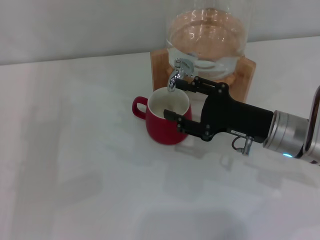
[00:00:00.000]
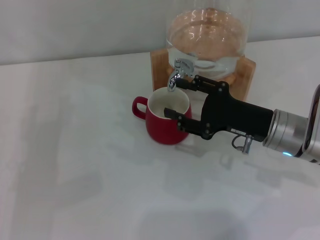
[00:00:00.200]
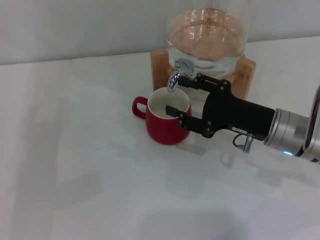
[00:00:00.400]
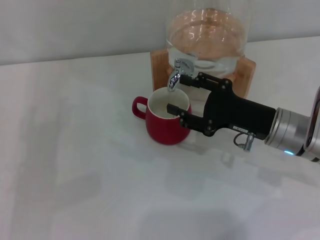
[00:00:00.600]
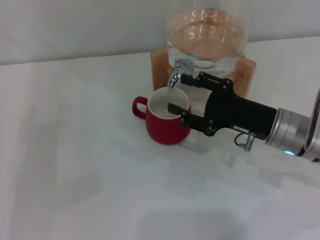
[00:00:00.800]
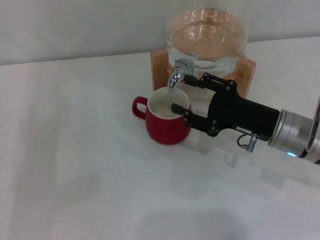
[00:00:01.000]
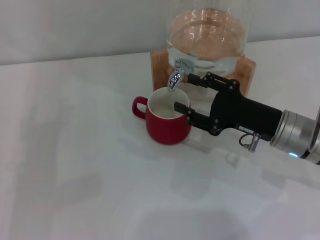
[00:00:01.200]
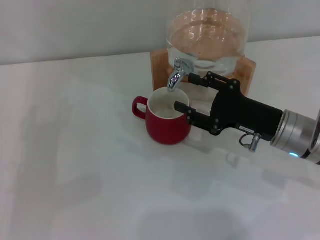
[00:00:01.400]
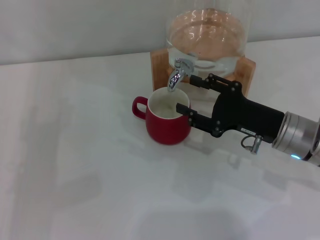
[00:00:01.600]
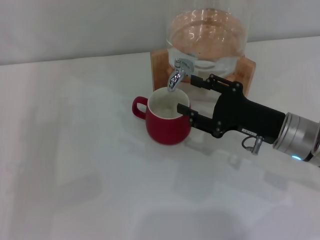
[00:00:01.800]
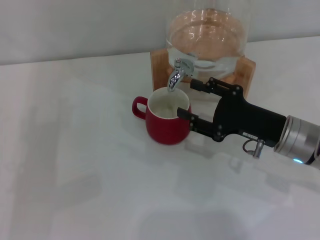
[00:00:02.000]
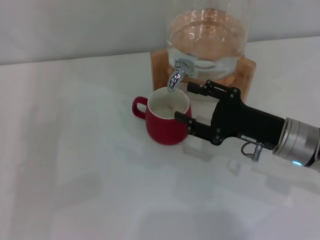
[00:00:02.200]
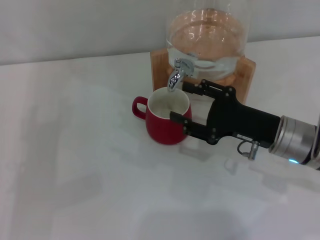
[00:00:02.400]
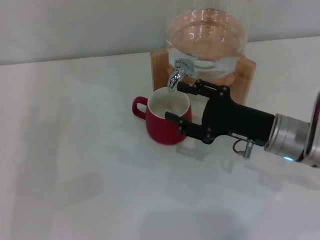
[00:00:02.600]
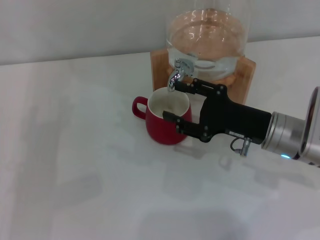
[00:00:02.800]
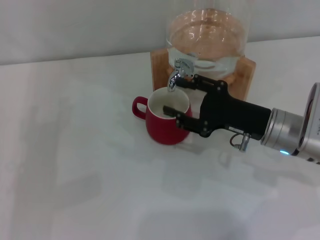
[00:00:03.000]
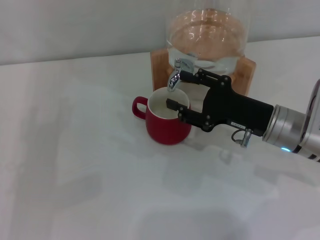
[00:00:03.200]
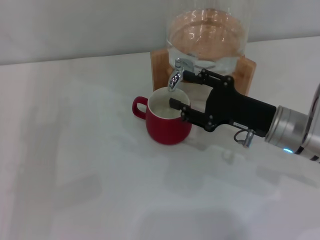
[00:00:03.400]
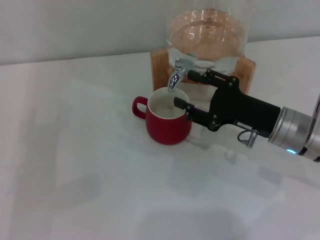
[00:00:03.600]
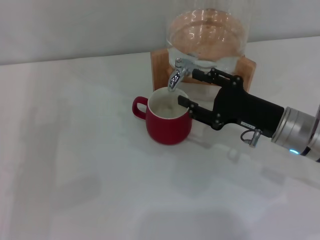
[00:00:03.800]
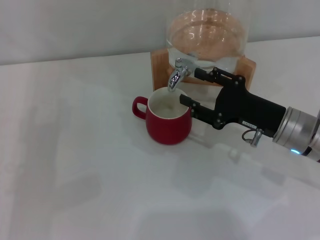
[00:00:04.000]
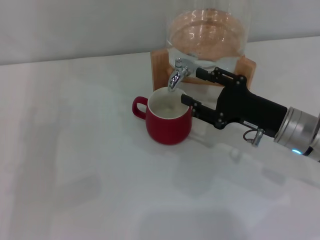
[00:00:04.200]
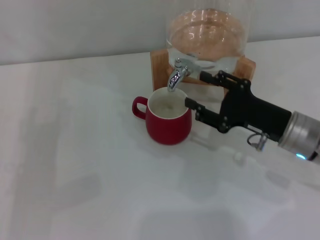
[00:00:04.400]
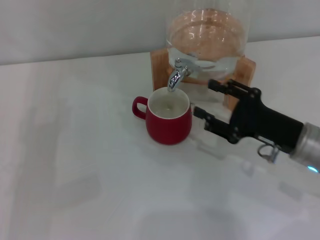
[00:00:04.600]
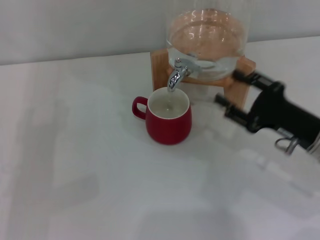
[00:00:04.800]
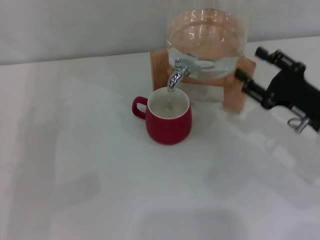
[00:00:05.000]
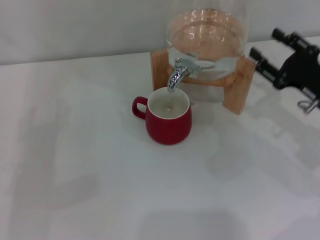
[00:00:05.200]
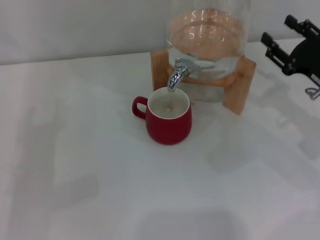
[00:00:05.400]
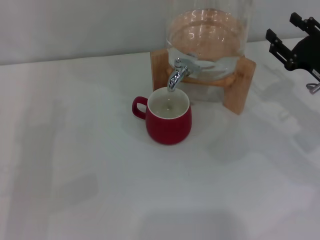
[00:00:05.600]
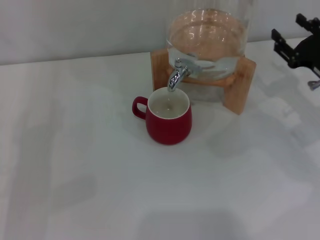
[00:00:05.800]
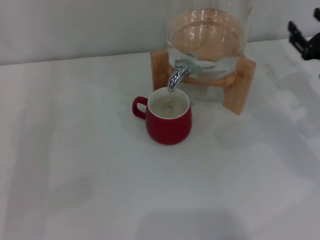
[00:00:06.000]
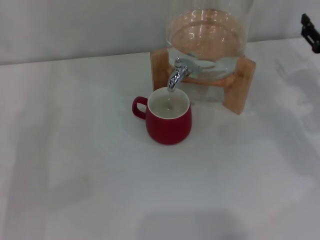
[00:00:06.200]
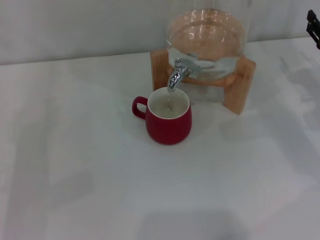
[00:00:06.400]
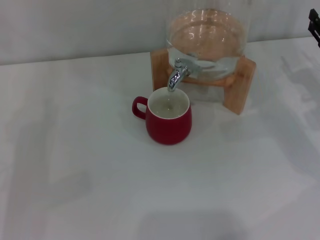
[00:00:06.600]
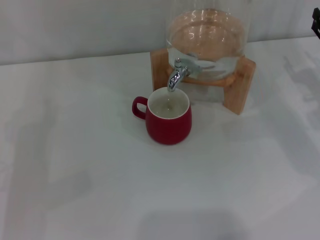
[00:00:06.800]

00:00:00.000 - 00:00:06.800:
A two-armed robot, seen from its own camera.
Task of the whole recording: the left gripper pick up the red cup and place it horizontally under the faucet, the right gripper turn on the faucet to fill the cup, and then turn off the faucet.
Step, 00:00:00.000 - 00:00:04.600: Close the dispenser valve with the right gripper.
00:00:00.000 - 00:00:01.400: Both grippers stay about where they are.
00:00:01.400 - 00:00:02.800: The two grippers keep their place.
00:00:02.800 - 00:00:04.000: The grippers move only a little.
00:00:04.000 - 00:00:05.400: The right gripper shifts about 10 cm to the right.
00:00:05.400 - 00:00:06.800: The right gripper changes place by some 5 cm.
